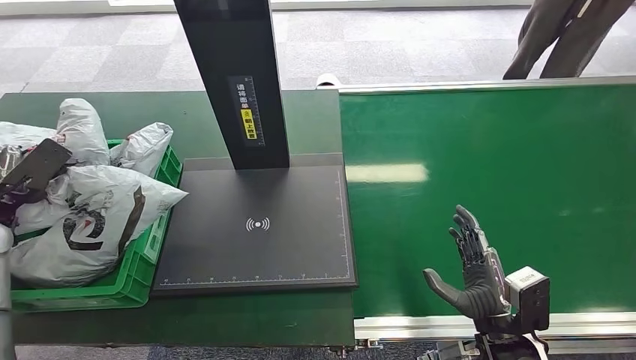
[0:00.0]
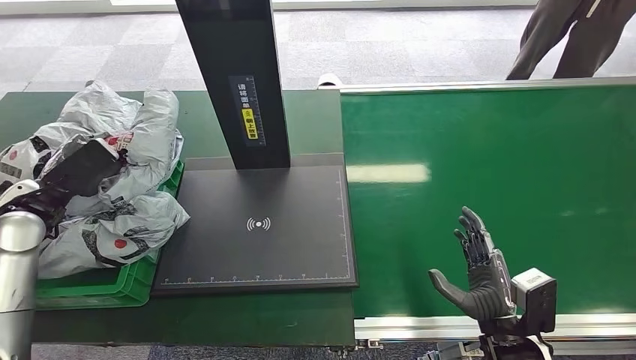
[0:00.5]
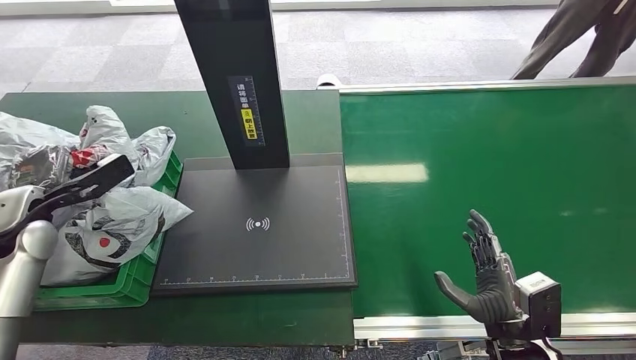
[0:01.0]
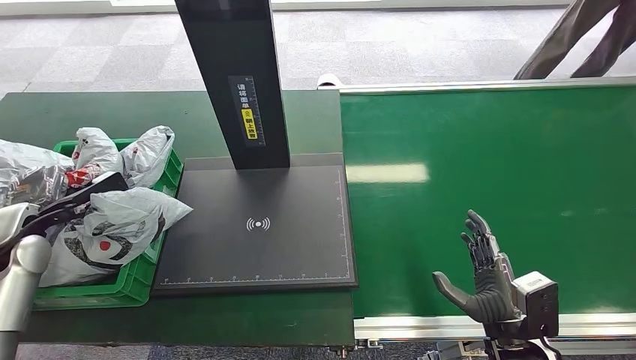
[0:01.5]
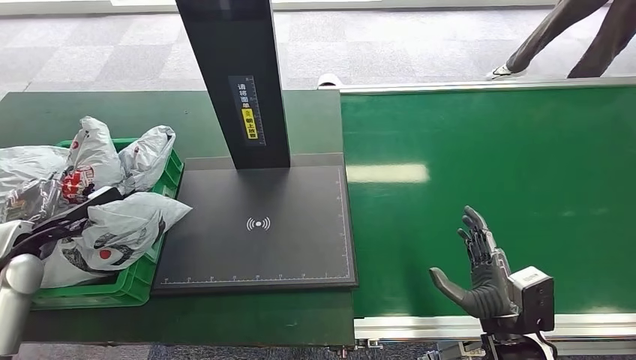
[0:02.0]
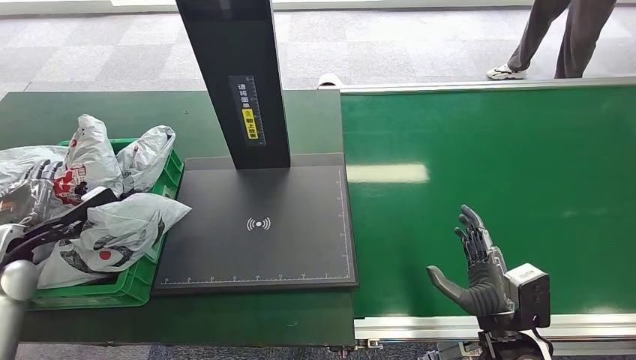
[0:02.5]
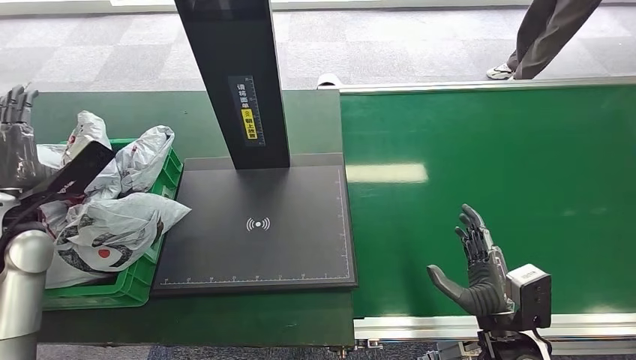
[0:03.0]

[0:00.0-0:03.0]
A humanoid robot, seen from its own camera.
Step, 0:00.0 to 0:03.0: Place the package into the parcel locker.
0:01.5 to 0:03.0: The left hand heads upward, covering some 5 cm.
